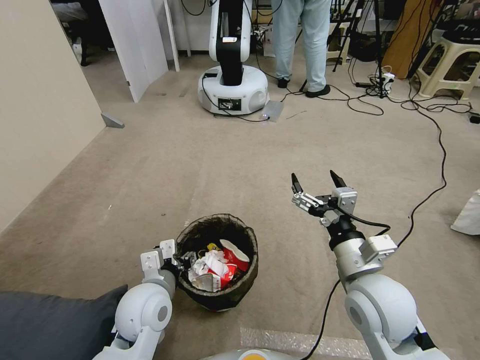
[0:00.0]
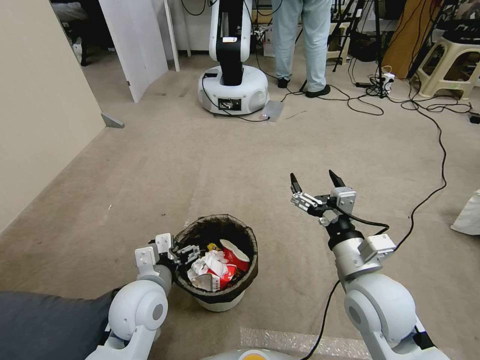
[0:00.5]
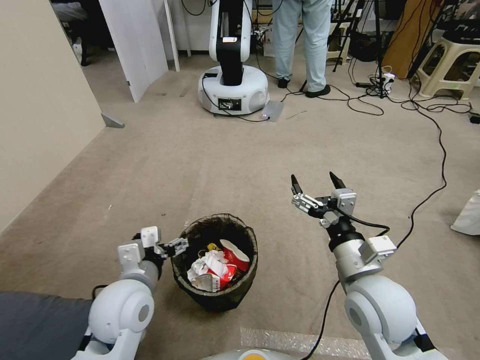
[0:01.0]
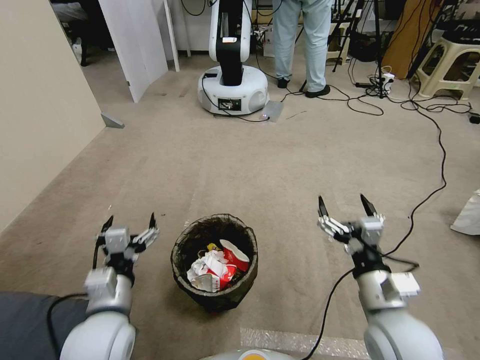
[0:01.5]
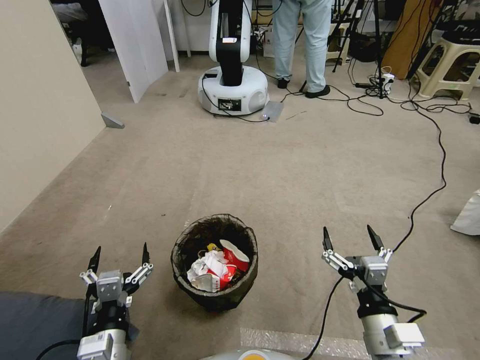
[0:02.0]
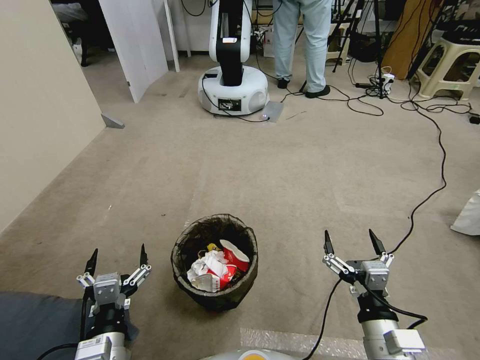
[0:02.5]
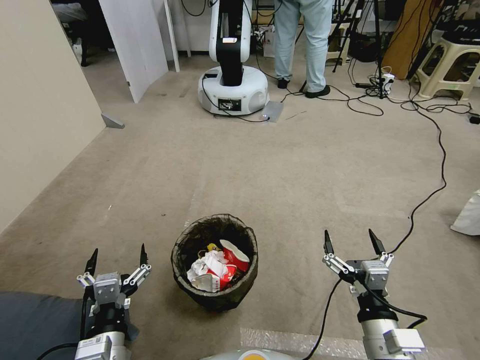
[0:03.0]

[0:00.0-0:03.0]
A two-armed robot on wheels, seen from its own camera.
Task of the whole recording: Pick up the trash bin, then pick up the garbage from the floor and place it into the trash bin.
0:00.0 to 0:01.5: The right gripper moves approximately 5 cm. Meanwhile the left gripper goes approximately 5 cm backward, and opens up.
0:01.5 to 0:03.0: Both grippers travel together backward, some 5 cm.
